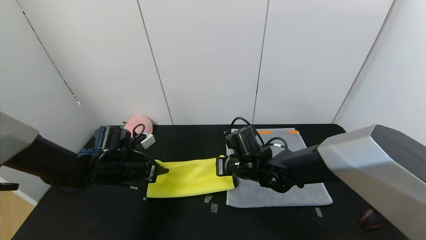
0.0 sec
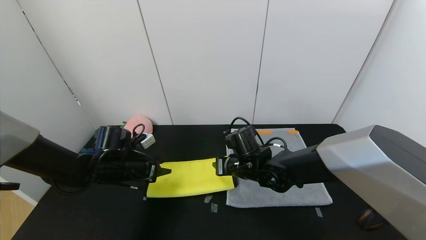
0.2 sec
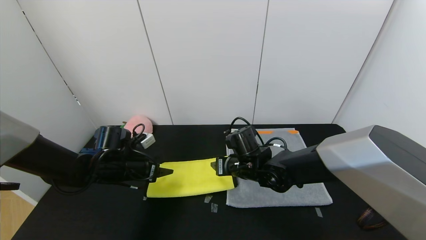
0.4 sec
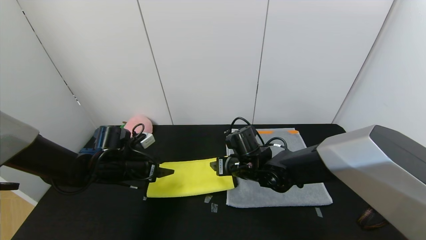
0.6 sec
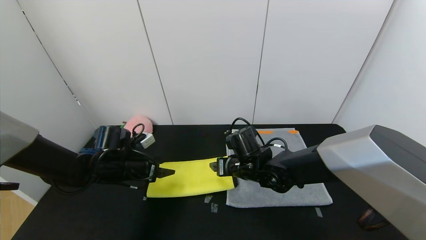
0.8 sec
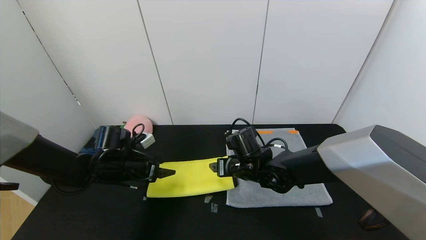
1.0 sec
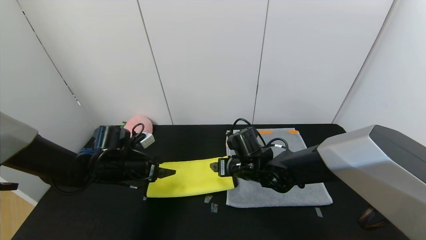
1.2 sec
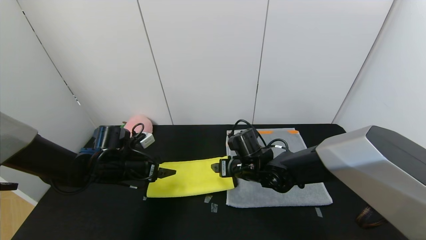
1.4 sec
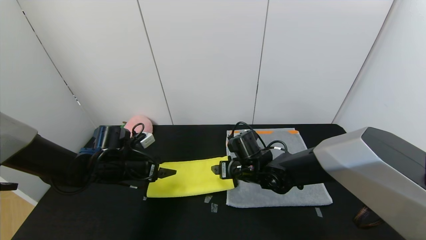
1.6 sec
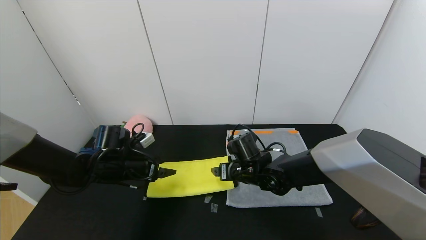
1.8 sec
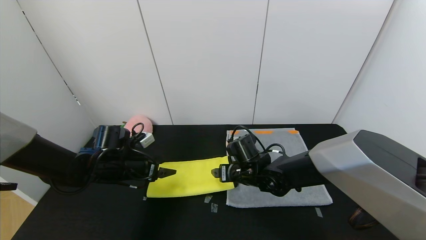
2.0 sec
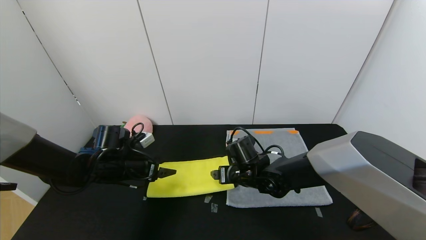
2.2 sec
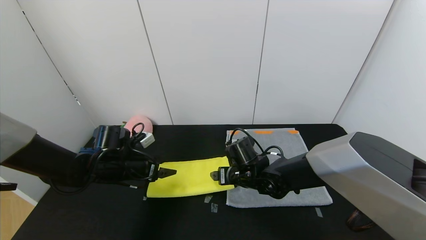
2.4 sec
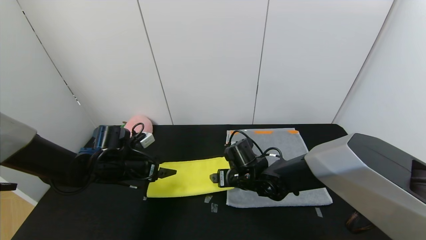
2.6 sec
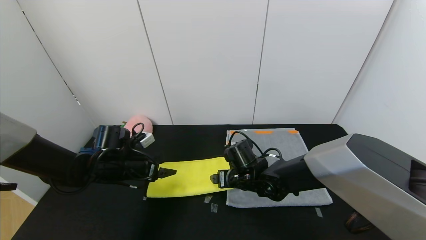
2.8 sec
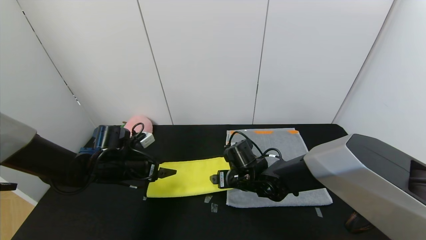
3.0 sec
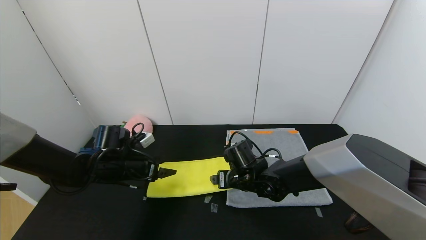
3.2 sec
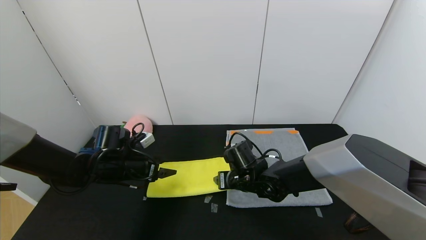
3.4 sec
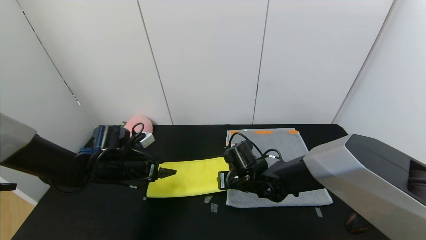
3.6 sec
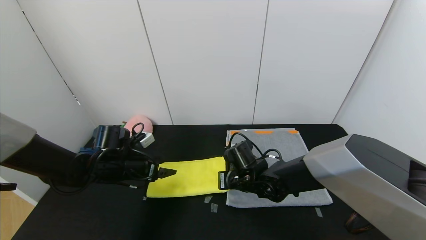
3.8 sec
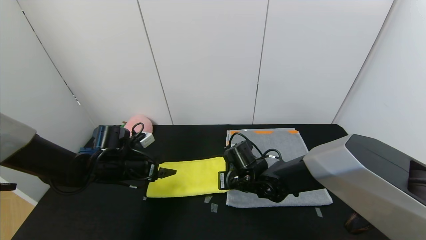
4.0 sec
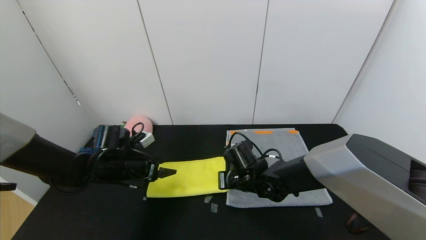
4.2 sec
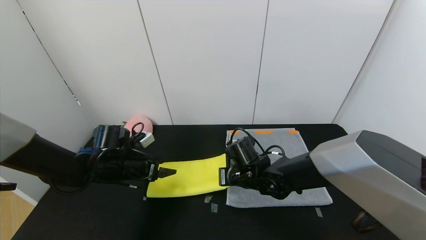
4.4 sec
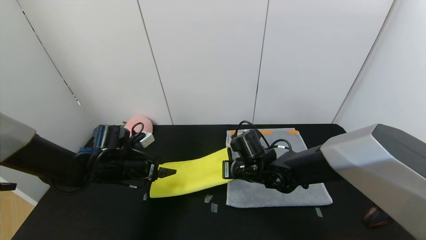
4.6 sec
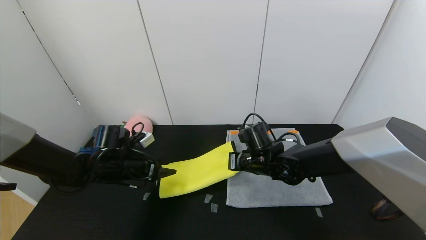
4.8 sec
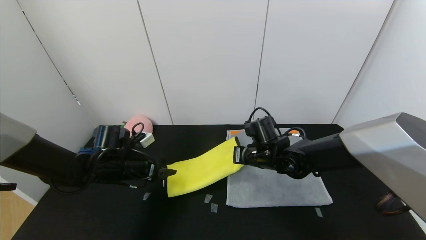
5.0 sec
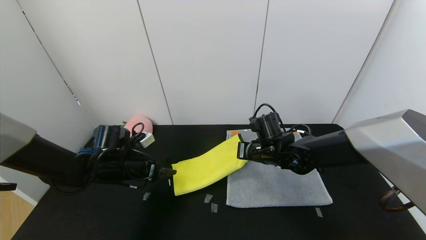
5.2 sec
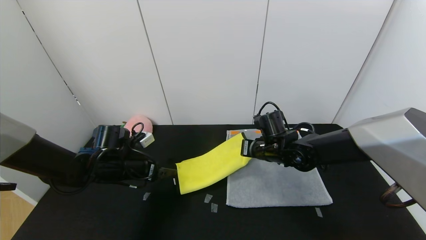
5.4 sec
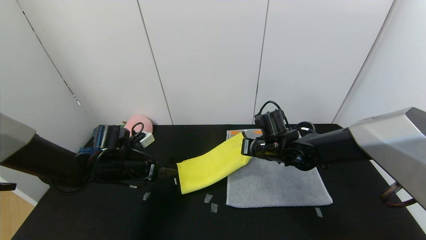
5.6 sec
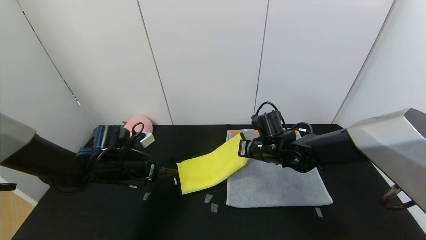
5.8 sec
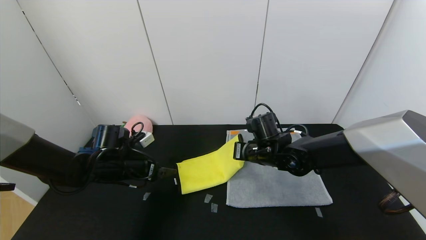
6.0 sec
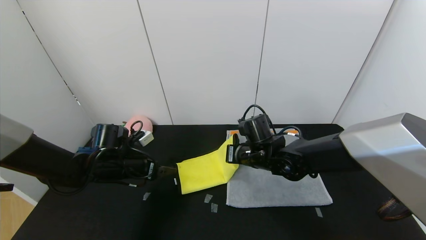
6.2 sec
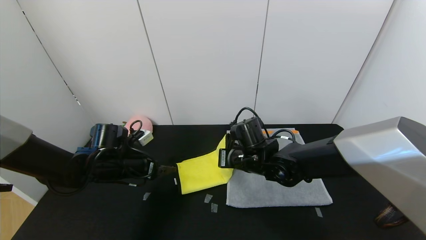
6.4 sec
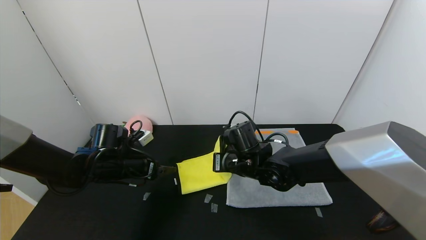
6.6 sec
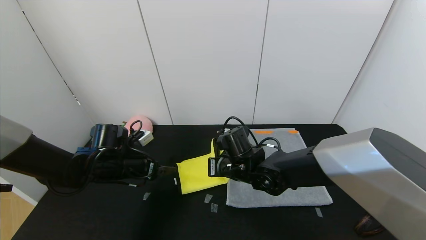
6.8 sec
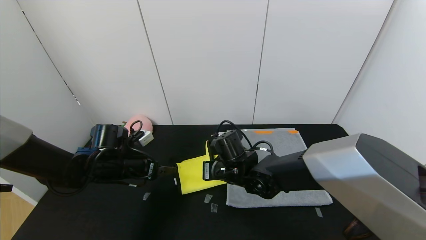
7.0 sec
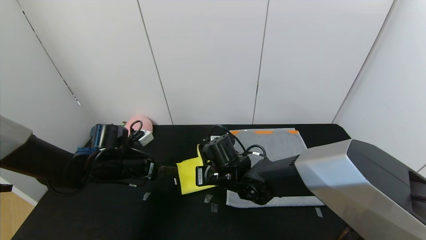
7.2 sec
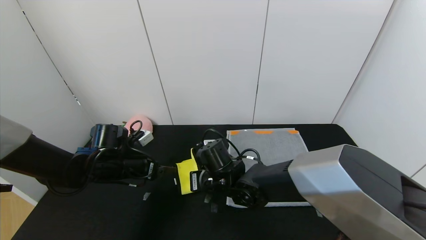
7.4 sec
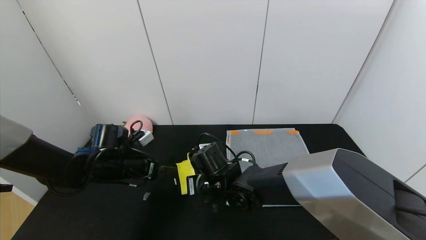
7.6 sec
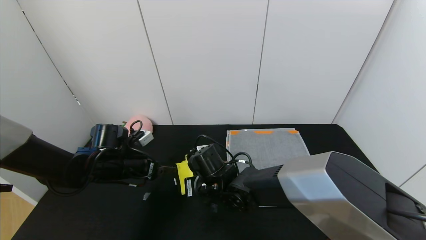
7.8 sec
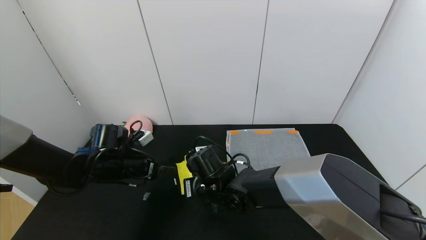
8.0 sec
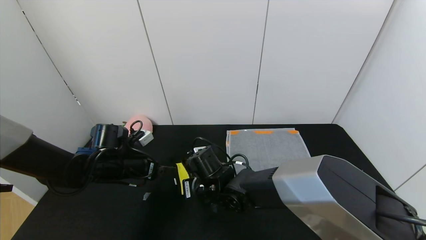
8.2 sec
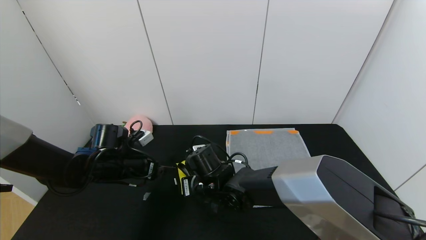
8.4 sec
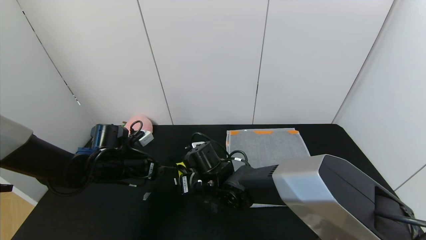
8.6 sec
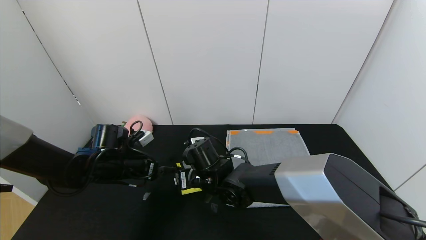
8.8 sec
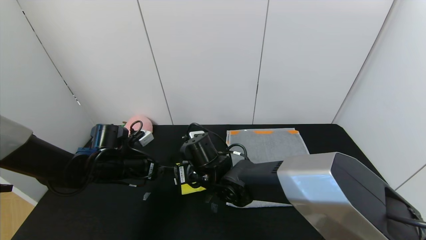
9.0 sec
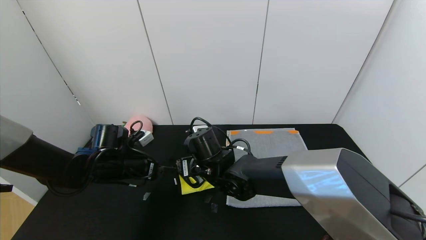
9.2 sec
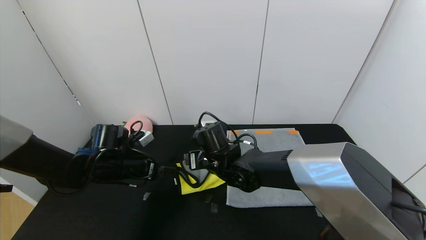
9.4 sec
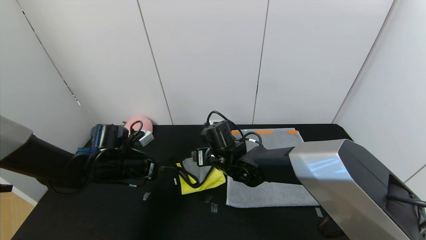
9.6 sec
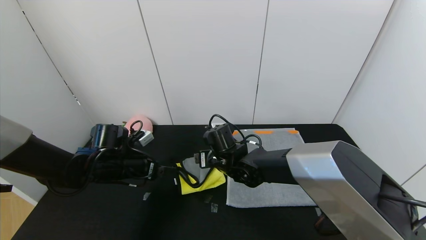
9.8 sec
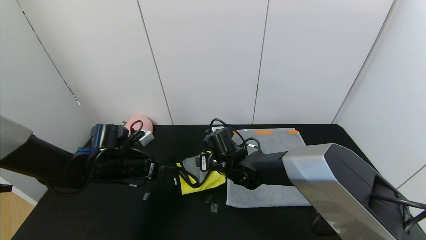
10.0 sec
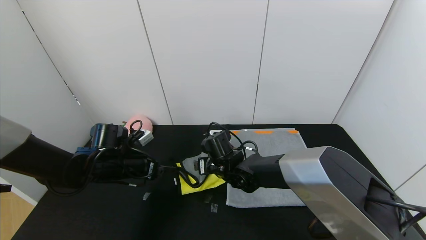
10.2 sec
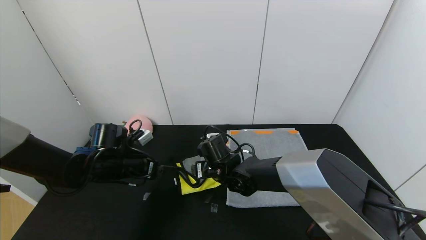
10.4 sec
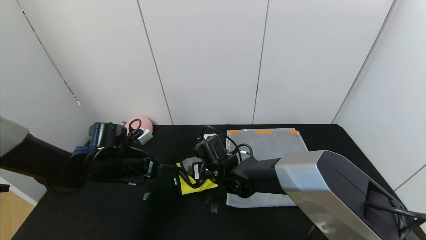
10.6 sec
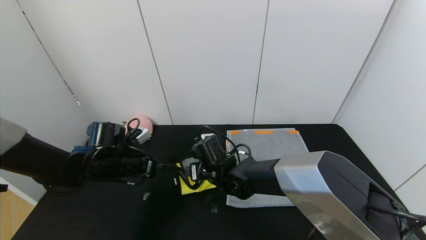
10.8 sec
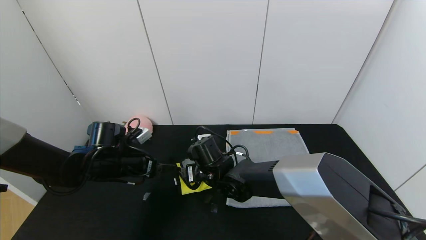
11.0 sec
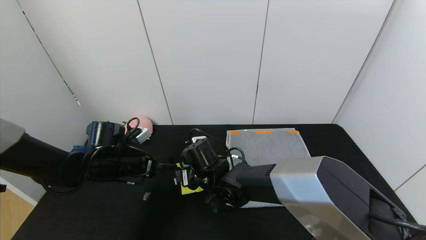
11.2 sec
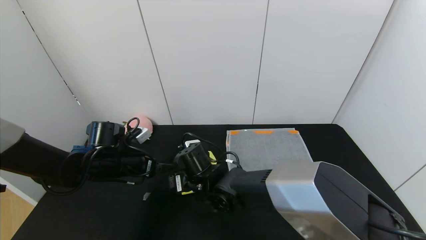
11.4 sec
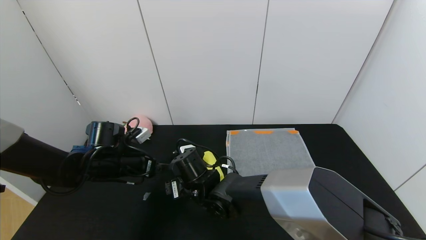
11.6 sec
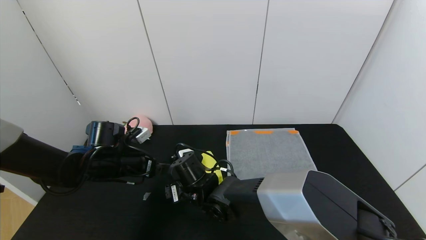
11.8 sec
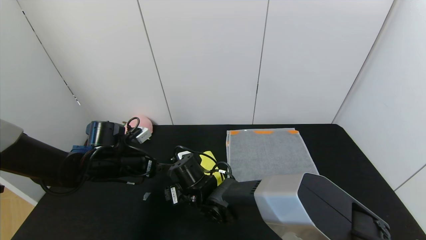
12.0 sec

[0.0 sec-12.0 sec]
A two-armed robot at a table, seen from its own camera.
Task of the whole recording: Use the gripper to fold the yellow towel and grey towel in half twice,then put the yellow towel on the grey towel.
0.0 sec to 1.6 sec: The right gripper opens, while the left gripper opens.
1.6 sec to 3.0 sec: The grippers make only small movements.
3.0 sec to 4.4 sec: The right gripper closes up.
4.4 sec to 6.0 sec: The right gripper moves upward, about 5 cm.
6.0 sec to 7.6 sec: The right gripper moves to the left and backward, some 15 cm.
7.6 sec to 9.0 sec: The right gripper opens.
9.0 sec to 10.4 sec: The right gripper ends up approximately 5 cm from where it was.
10.4 sec to 12.0 sec: The right gripper is displaced backward and to the left by roughly 10 cm.

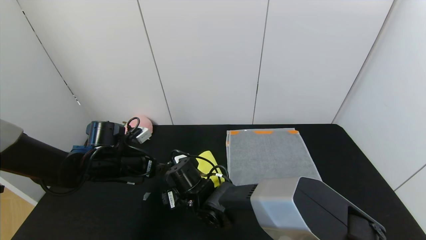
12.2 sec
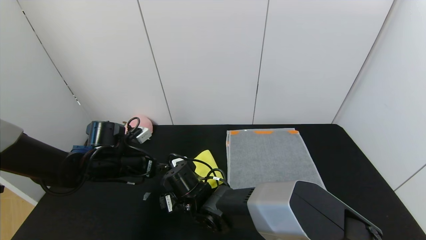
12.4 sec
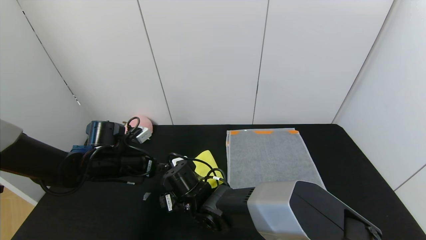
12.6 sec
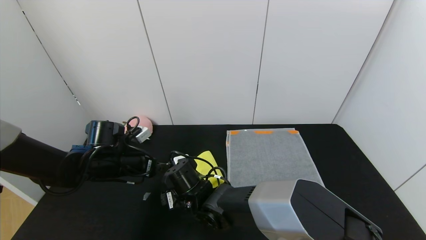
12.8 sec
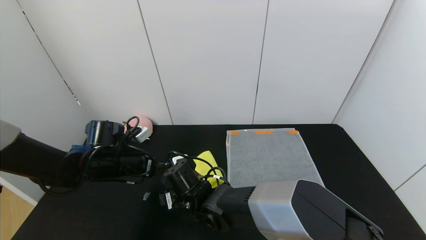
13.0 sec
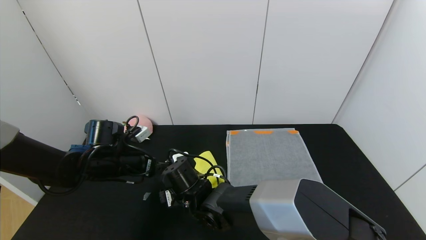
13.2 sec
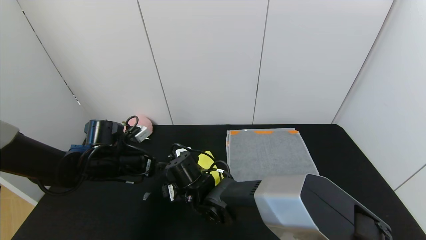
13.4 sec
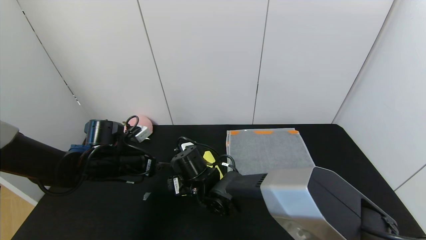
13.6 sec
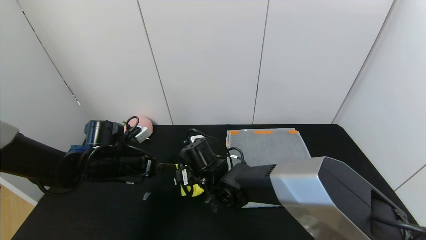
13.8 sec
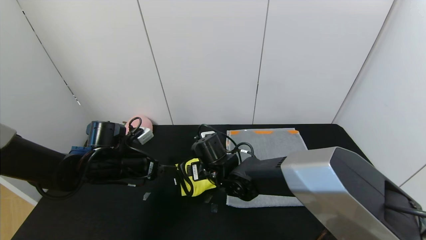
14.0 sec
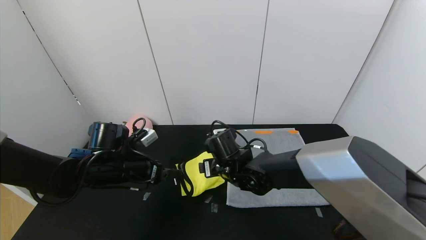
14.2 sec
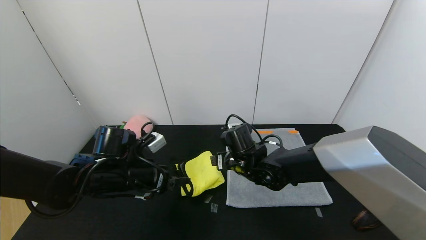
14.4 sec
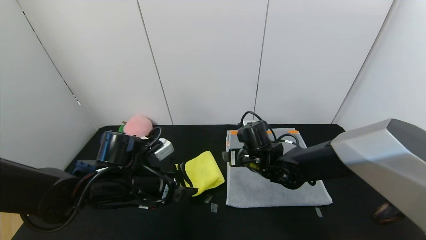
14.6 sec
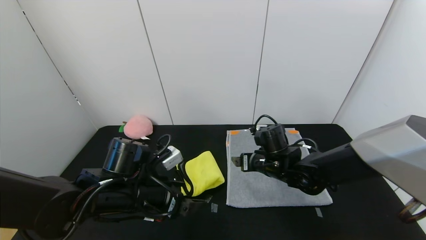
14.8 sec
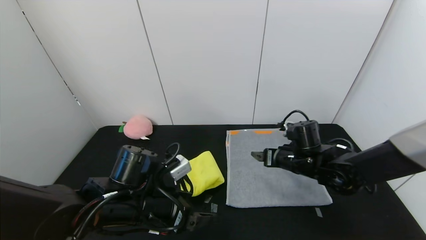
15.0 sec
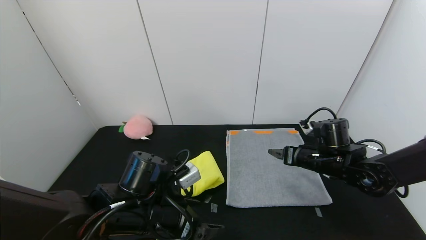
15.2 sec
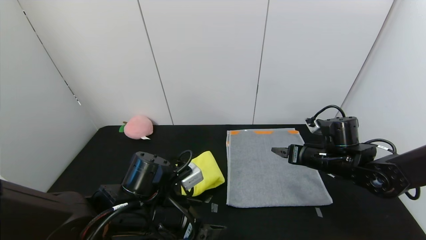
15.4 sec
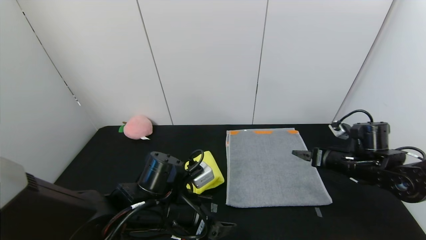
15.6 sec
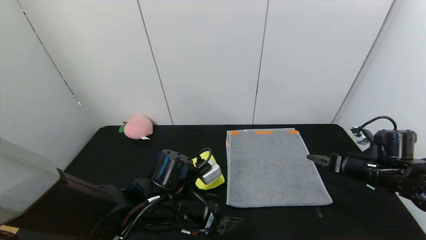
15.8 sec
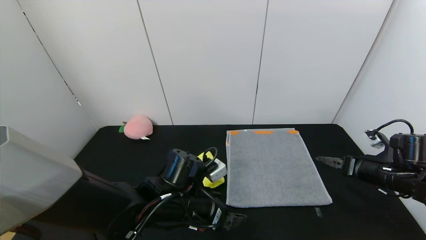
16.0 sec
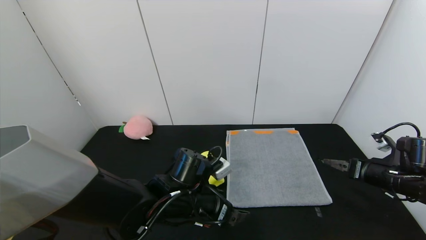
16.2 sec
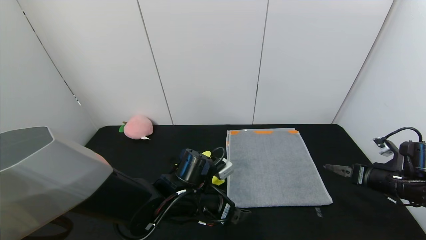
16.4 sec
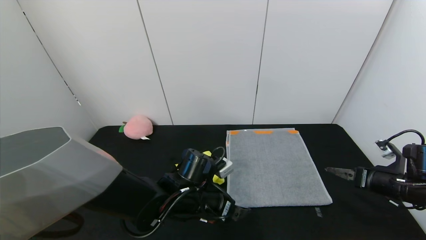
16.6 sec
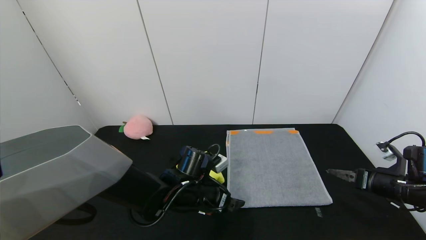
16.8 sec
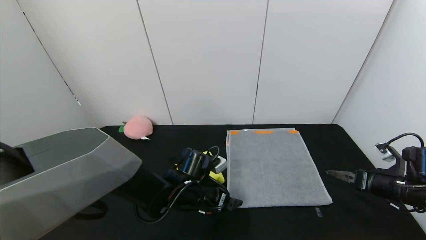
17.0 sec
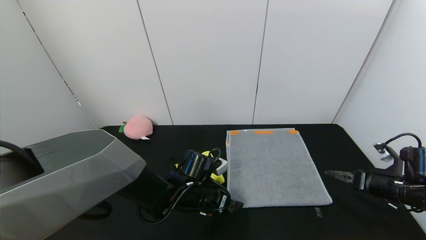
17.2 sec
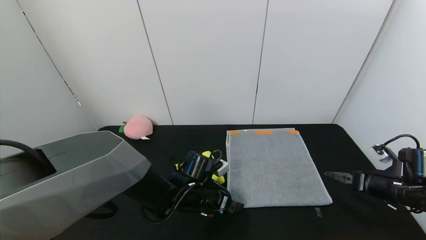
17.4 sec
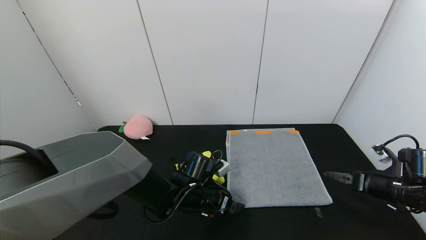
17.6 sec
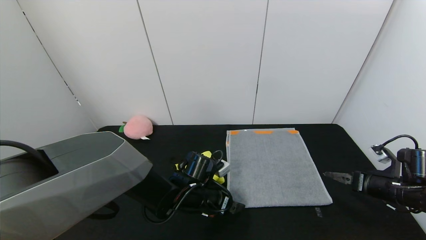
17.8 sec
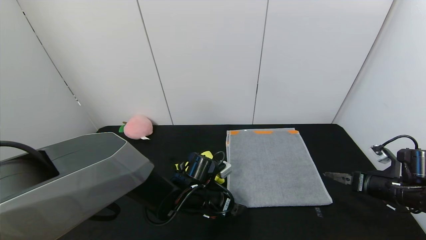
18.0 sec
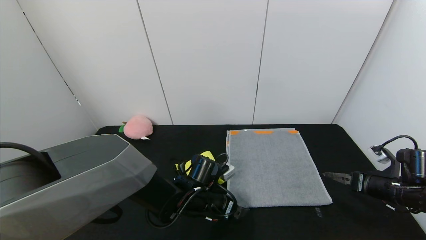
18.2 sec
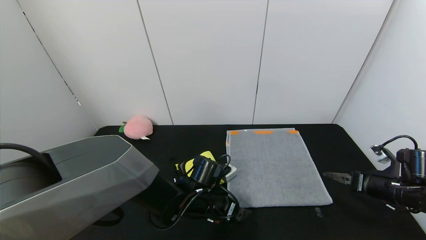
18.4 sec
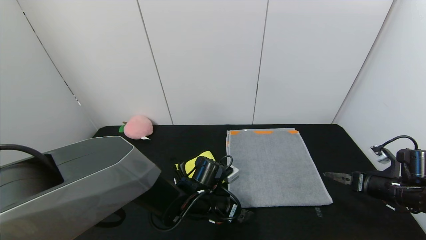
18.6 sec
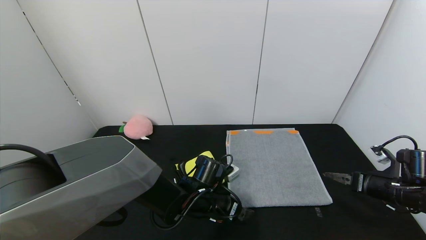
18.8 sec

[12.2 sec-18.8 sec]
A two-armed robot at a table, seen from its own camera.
Task of the whole recording: Use the gripper to fold the yellow towel and grey towel in half twice,then put the yellow towel on the grey towel.
12.2 sec to 13.8 sec: The right gripper ends up about 5 cm from where it was.
13.8 sec to 15.4 sec: The left gripper is displaced to the right and backward by roughly 15 cm; the right gripper goes approximately 30 cm to the right.
15.4 sec to 17.2 sec: The right gripper heads to the right, covering about 15 cm; the left gripper shifts approximately 15 cm forward, downward and to the right.
17.2 sec to 18.8 sec: There are only small adjustments of the grippers.
